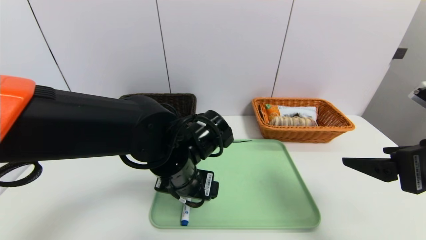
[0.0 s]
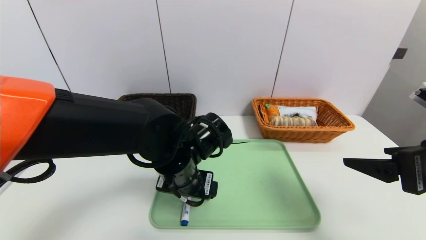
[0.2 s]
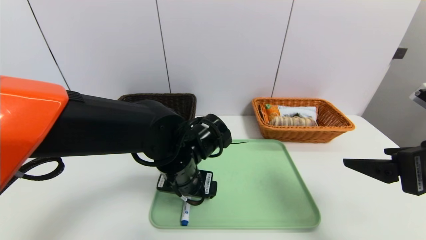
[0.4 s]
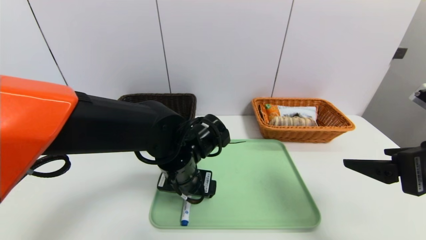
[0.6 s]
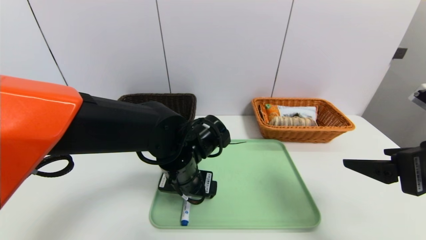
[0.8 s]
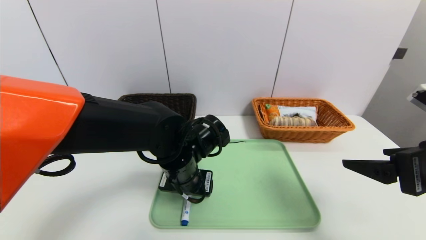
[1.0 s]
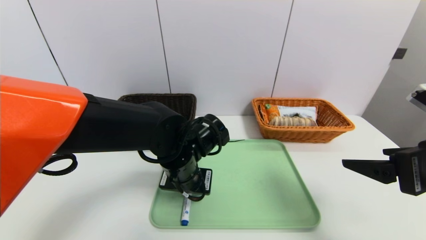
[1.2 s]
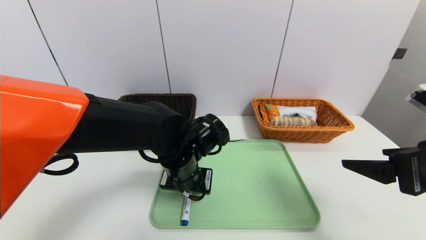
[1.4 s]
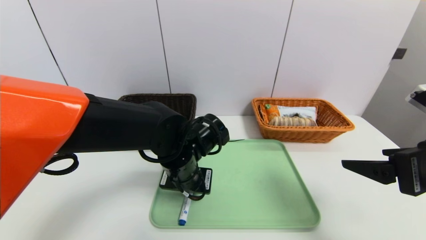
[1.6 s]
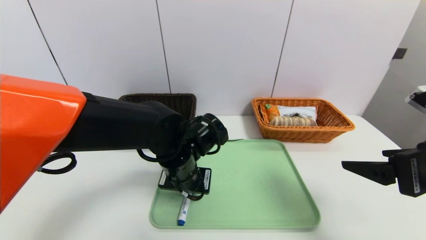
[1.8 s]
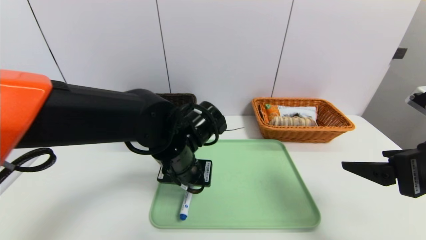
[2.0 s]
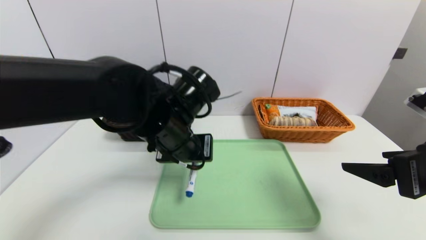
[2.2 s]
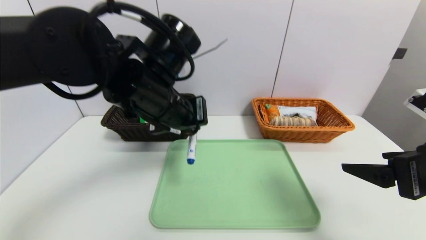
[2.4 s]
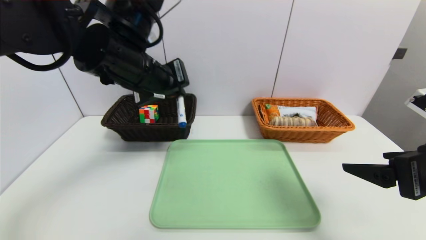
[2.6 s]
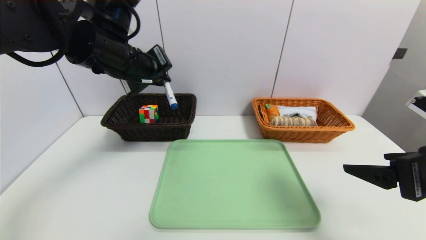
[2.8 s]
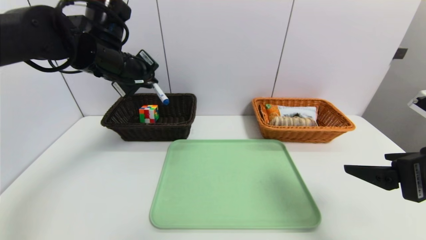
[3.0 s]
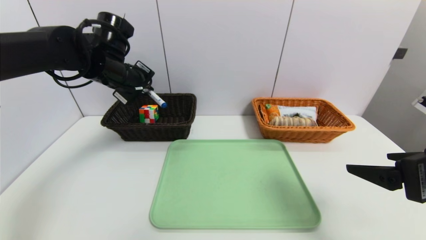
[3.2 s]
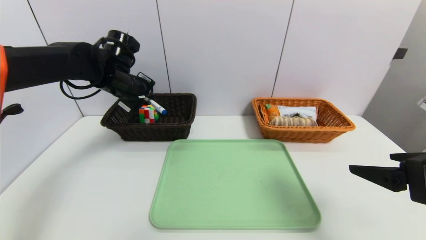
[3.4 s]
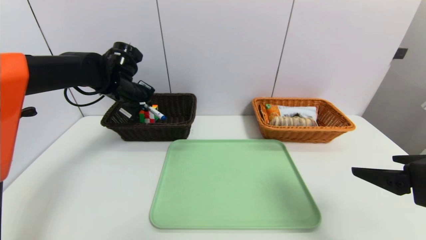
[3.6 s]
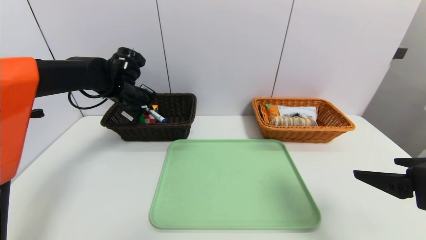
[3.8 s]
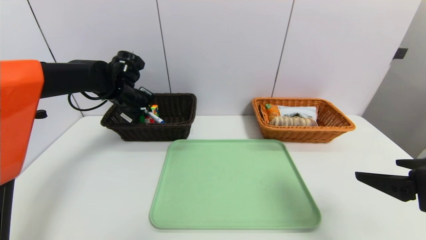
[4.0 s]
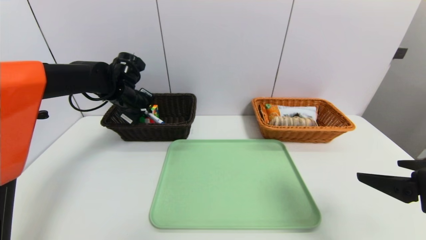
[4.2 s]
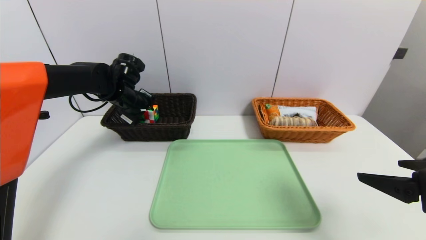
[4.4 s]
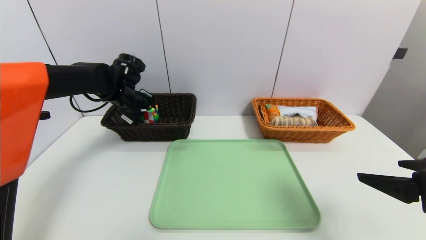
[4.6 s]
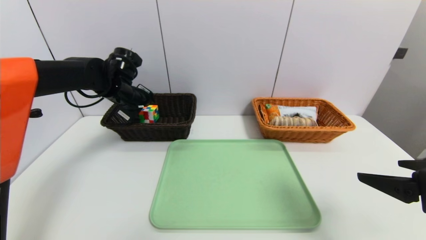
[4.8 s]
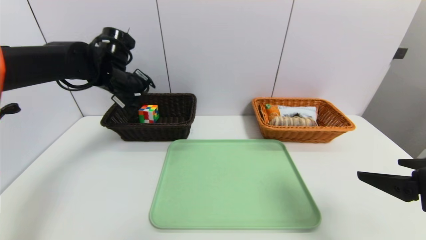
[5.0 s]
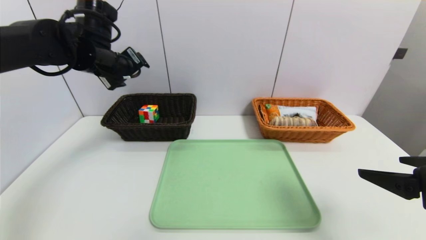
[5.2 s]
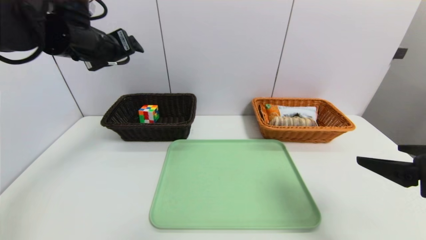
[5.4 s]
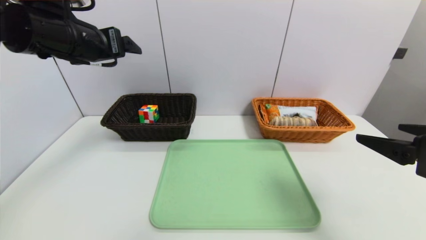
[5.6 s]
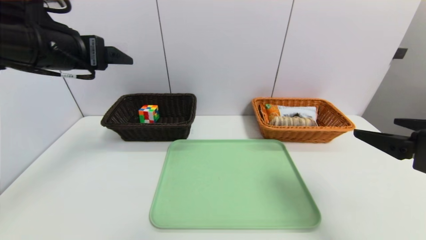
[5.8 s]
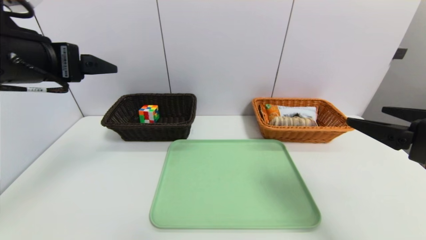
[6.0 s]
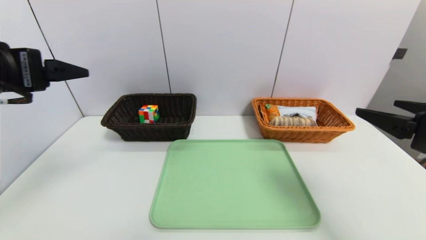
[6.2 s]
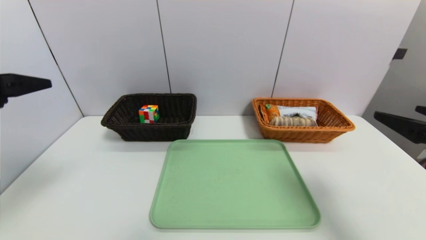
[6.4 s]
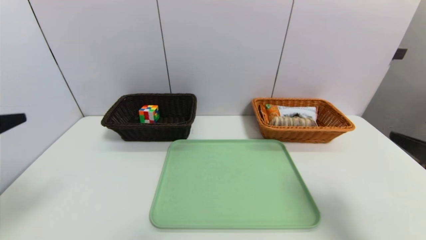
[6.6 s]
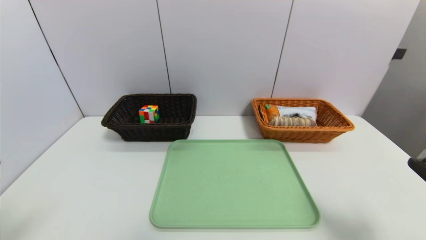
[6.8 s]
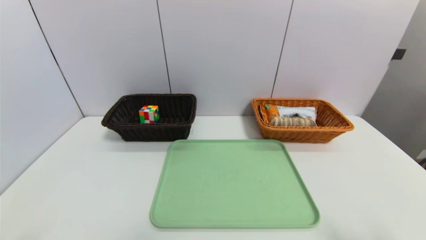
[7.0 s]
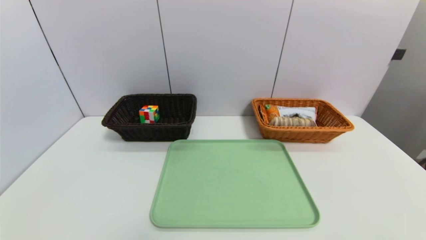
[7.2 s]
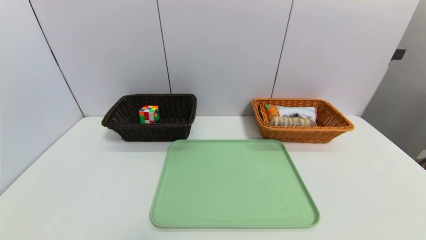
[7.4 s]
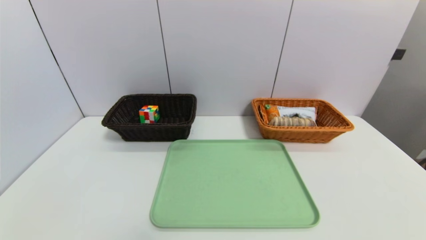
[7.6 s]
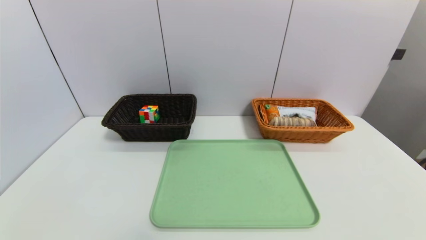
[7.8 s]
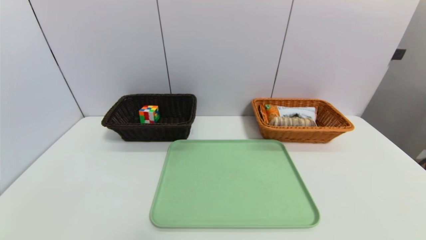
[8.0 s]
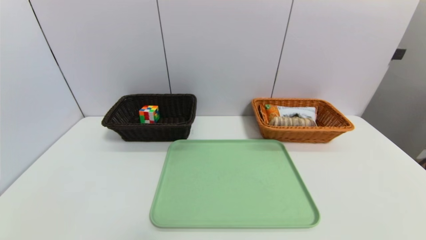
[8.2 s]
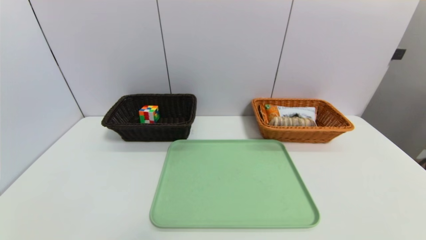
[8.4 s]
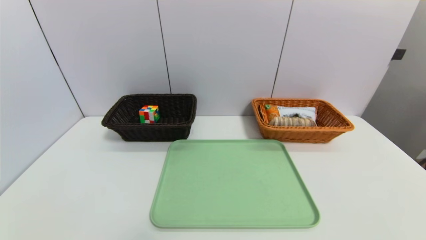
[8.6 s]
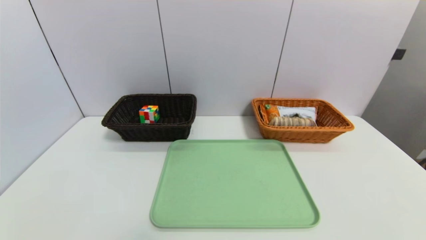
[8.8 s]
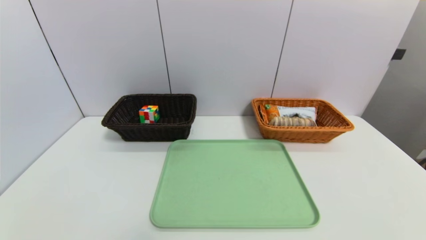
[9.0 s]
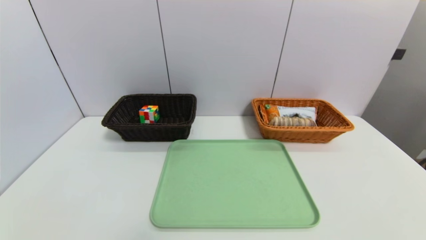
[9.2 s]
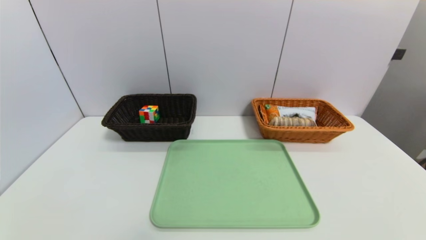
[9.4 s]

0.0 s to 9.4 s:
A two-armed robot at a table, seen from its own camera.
Task of the whole recording: place the food in the right basket with the right gripper, and place the non food items in the left basket with the left gripper.
Step, 0.0 to 4.8 s: Grasp the blue marker and put it in the left basket.
0.0 to 1.6 s: The left gripper closes up.
1.6 to 3.2 s: The left gripper moves to the left, upward and forward, some 25 cm.
3.2 to 4.8 s: The left gripper moves downward, about 5 cm, and opens its fingers.
4.8 to 6.2 s: The left gripper heads backward and upward, covering some 30 cm.
6.2 to 7.8 s: The left gripper travels downward and backward by some 30 cm; the right gripper heads backward and downward, covering about 25 cm.
